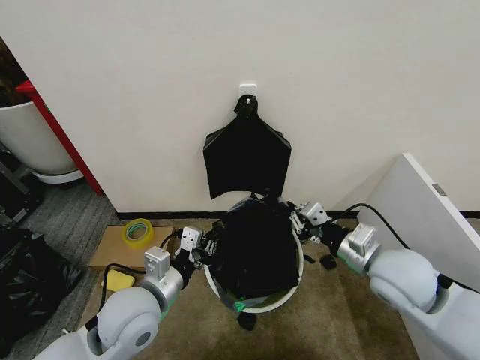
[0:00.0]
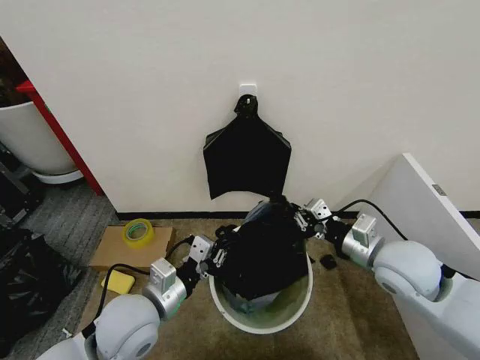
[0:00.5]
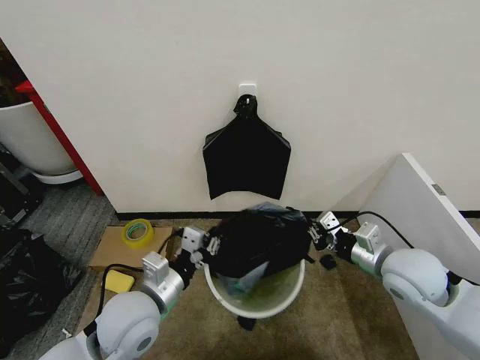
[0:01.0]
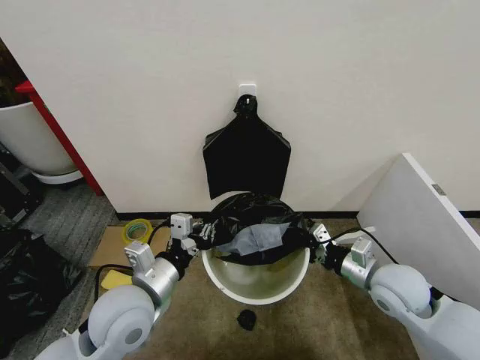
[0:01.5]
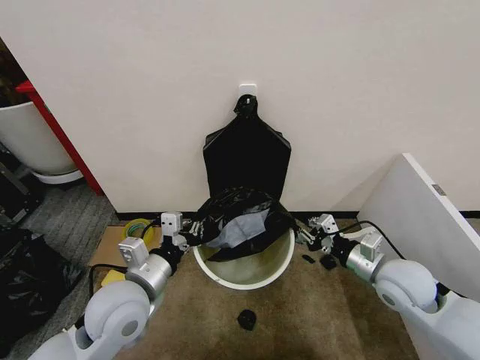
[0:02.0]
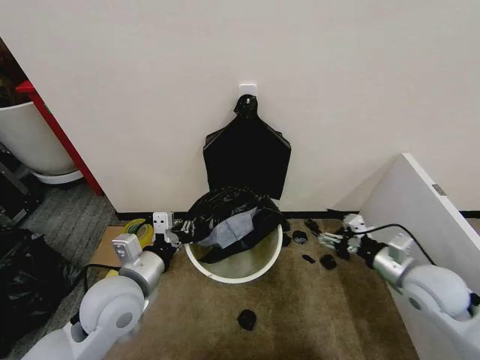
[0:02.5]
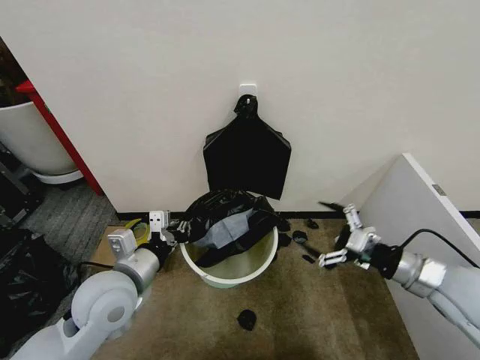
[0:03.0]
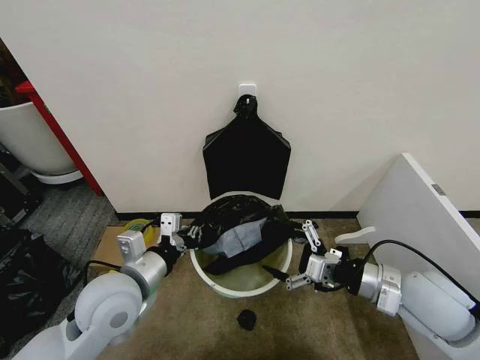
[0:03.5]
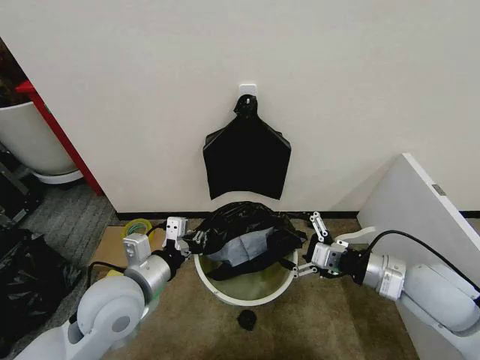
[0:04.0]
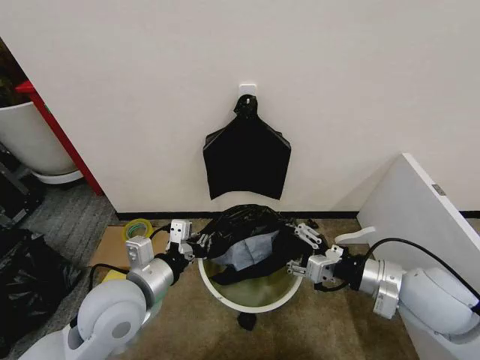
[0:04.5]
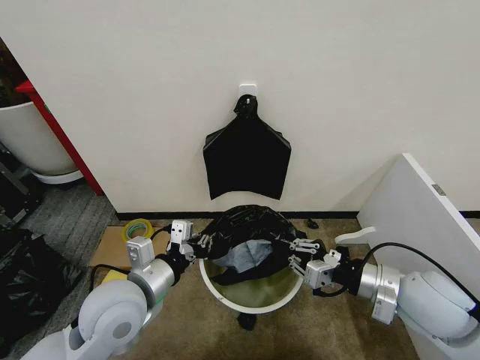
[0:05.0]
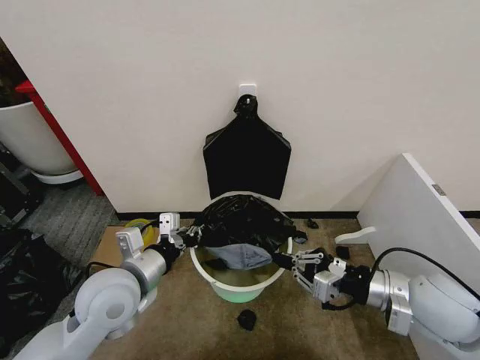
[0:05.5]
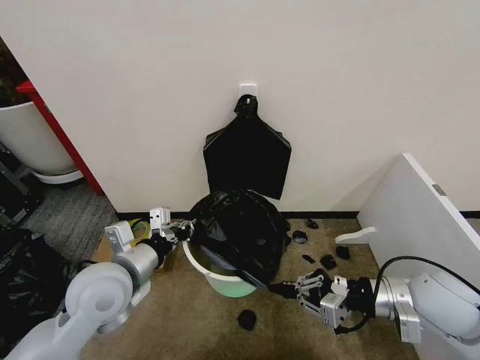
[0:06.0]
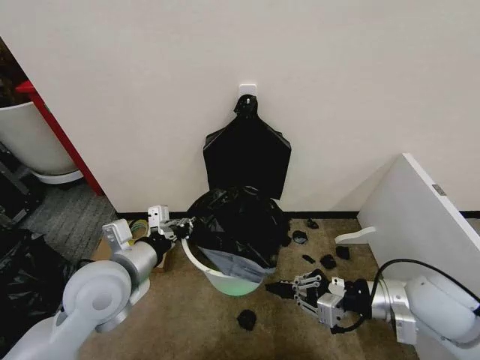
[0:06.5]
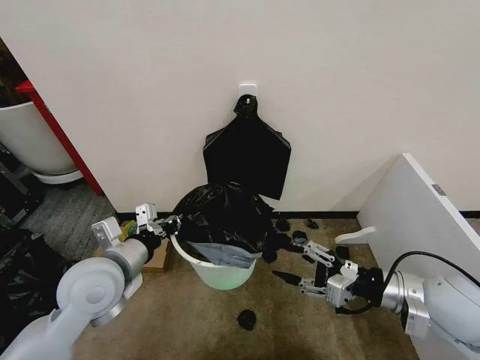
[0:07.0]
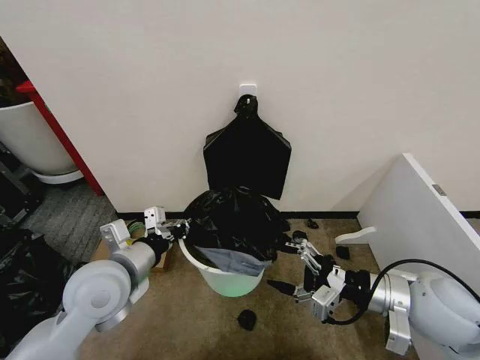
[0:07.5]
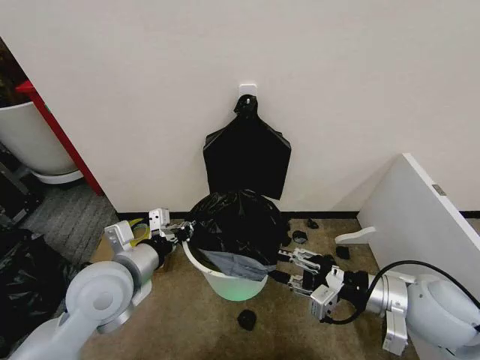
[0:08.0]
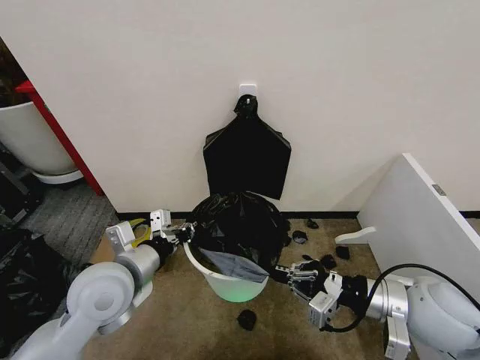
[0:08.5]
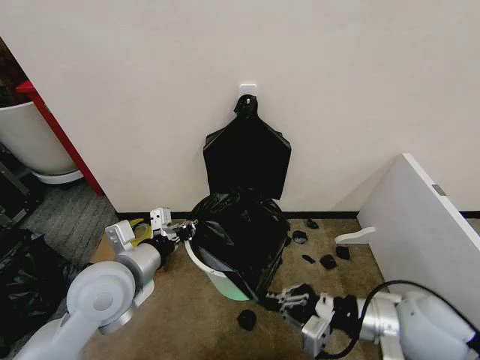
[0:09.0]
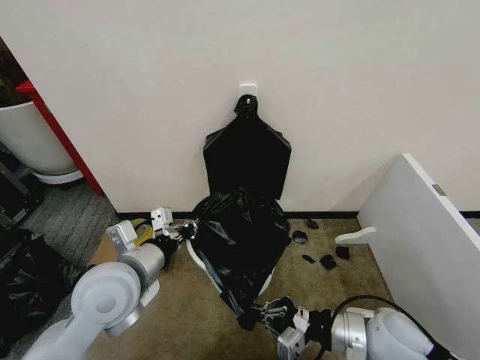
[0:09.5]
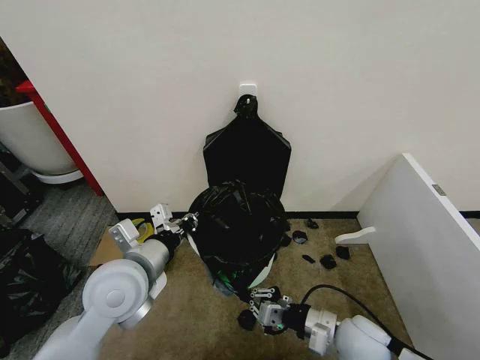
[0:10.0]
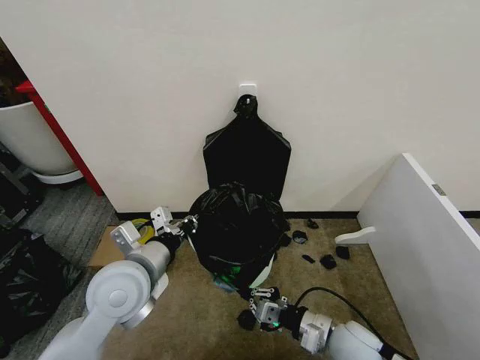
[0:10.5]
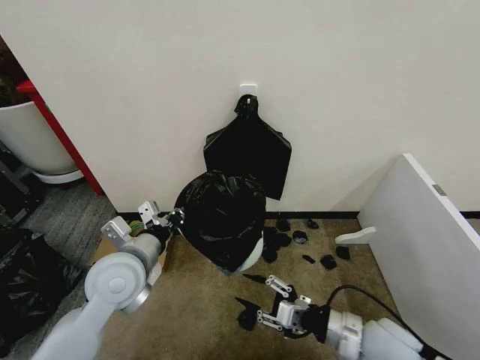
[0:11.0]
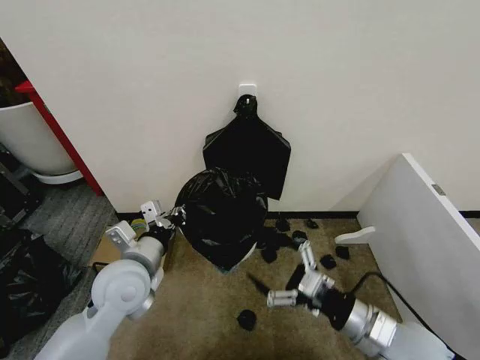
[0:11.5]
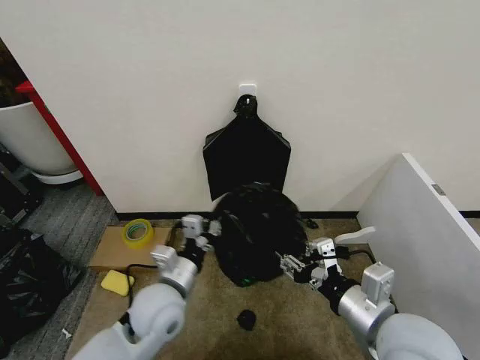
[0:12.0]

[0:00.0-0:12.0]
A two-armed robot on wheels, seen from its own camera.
Task of the whole recording: Place the garbage bag over the trash bin.
0:00.0 to 0:02.0: The right gripper shifts roughly 5 cm downward.
0:02.0 to 0:04.0: The right gripper travels upward by about 5 cm, and opens its fingers.
0:04.0 to 0:06.0: The right gripper closes its fingers.
0:06.0 to 0:08.0: The right gripper opens its fingers.
0:08.0 to 0:10.0: The right gripper heads downward and to the left, covering about 15 cm, and closes.
0:10.0 to 0:12.0: The right gripper is displaced upward by approximately 15 cm, and opens its fingers; the left gripper goes about 10 cm downward.

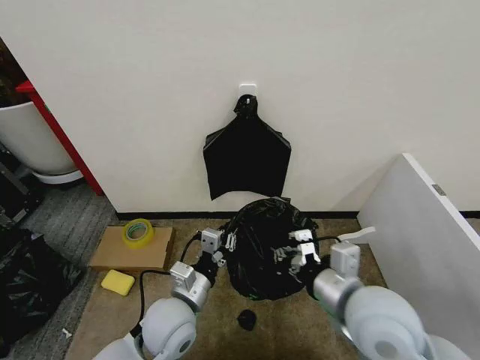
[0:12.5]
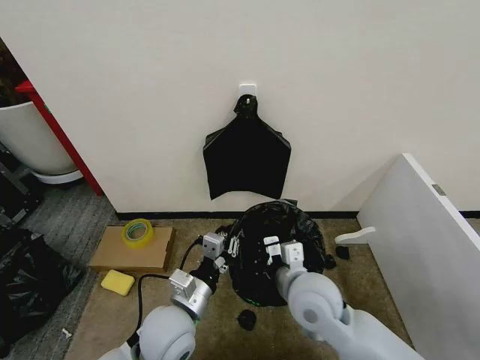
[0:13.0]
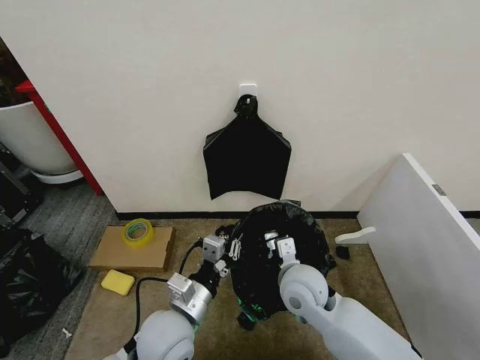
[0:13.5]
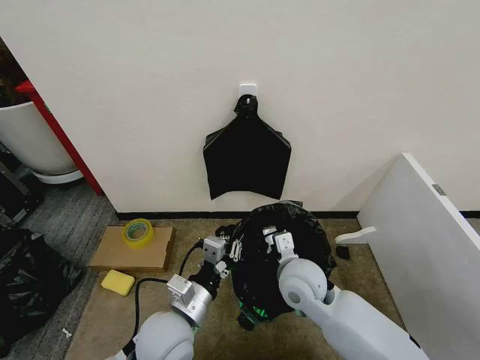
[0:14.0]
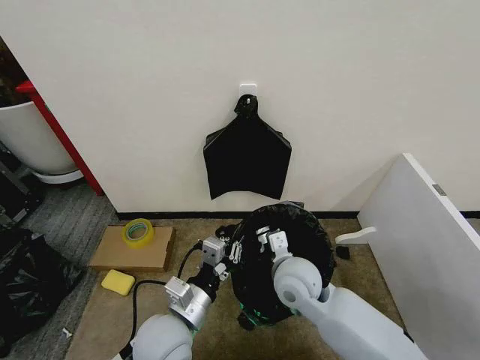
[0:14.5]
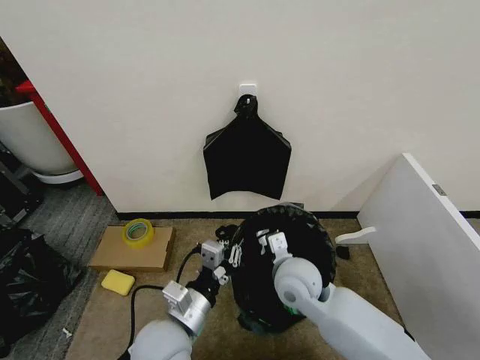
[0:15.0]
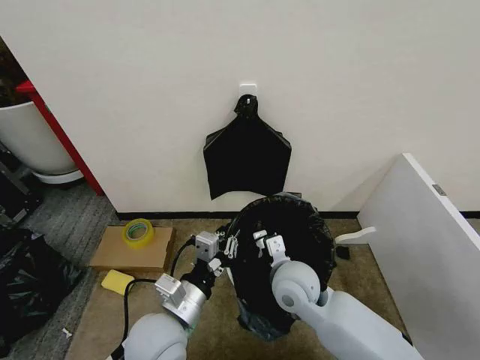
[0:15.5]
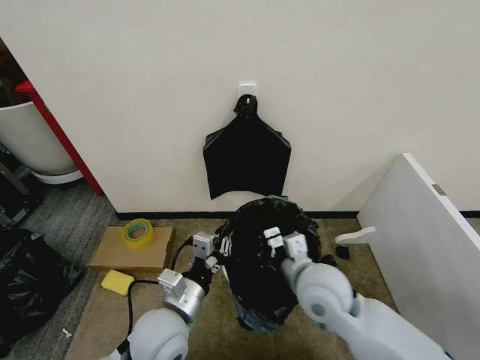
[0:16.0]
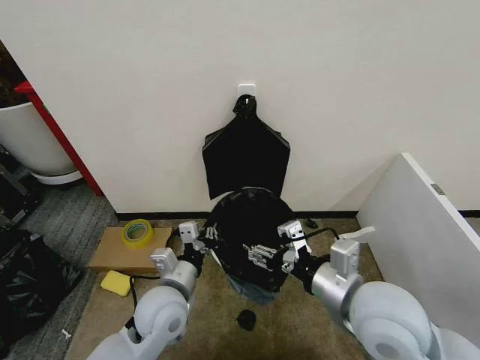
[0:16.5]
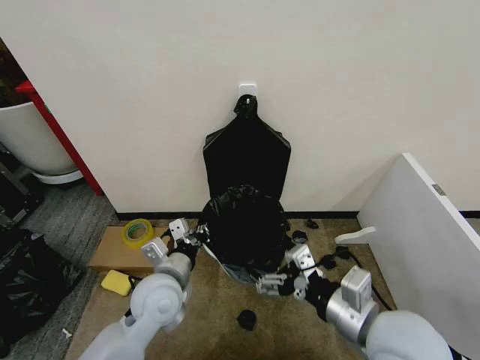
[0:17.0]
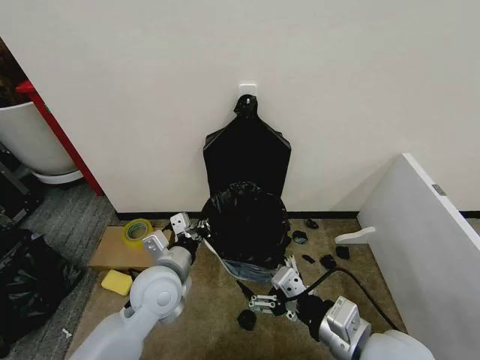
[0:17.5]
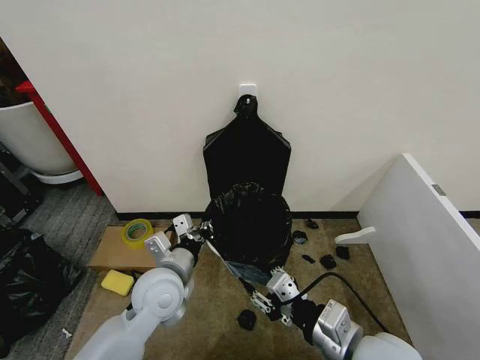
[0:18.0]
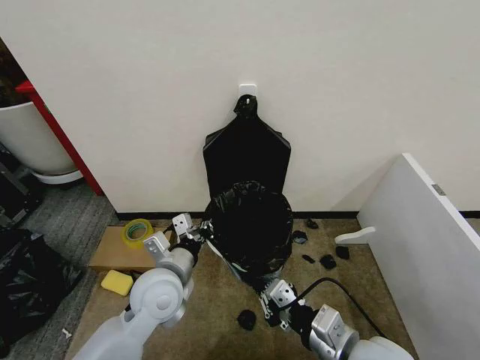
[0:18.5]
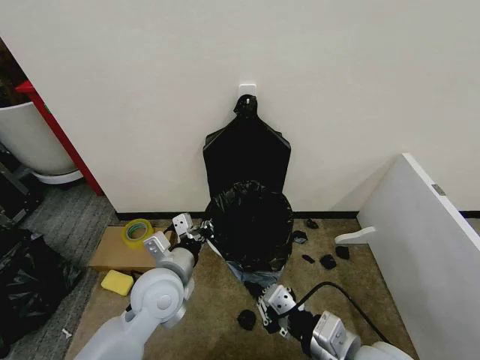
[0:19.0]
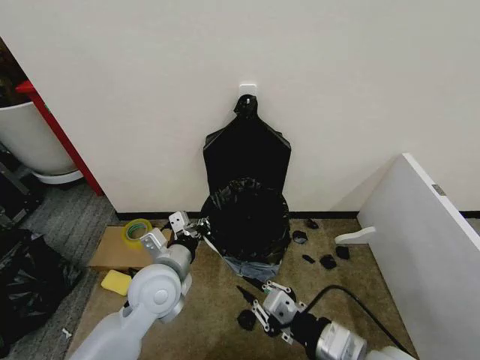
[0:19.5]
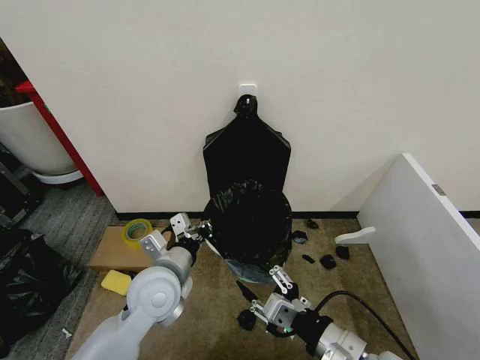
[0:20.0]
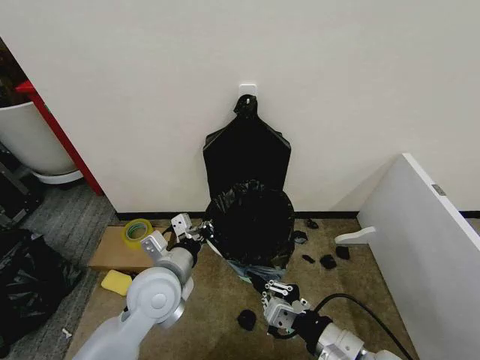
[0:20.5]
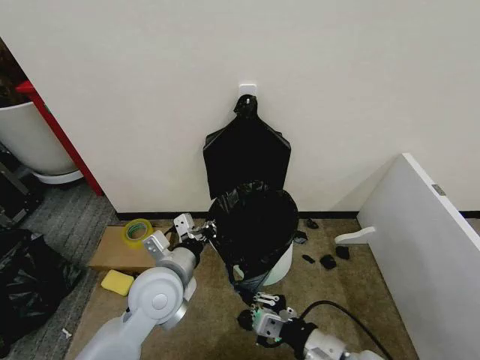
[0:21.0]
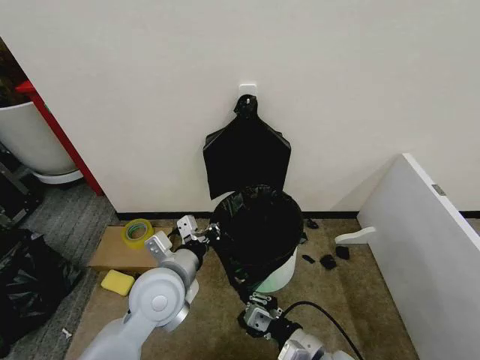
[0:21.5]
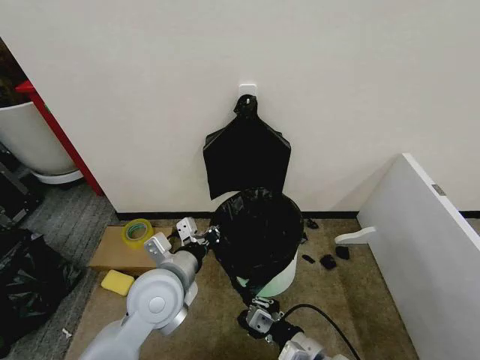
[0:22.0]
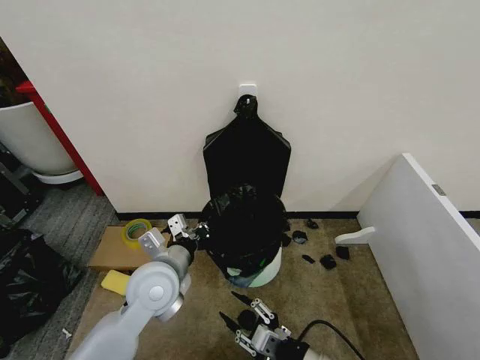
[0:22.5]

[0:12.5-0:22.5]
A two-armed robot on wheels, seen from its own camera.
Task of the whole recording: Place the garbage bag over the trash bin.
0:12.5 to 0:14.5: The right gripper moves forward, downward and to the left, some 15 cm.
0:14.5 to 0:16.5: The right gripper is displaced upward, backward and to the right by about 20 cm, and opens, while the left gripper heads forward, covering approximately 5 cm.
0:16.5 to 0:18.5: The right gripper goes approximately 10 cm downward and backward, and closes its fingers.
0:18.5 to 0:20.5: The right gripper opens and closes again.
0:20.5 to 0:22.5: The right gripper goes roughly 10 cm downward, and opens its fingers.

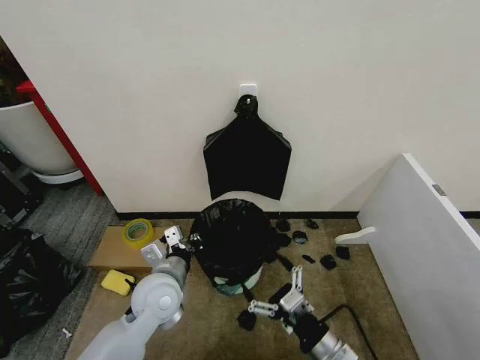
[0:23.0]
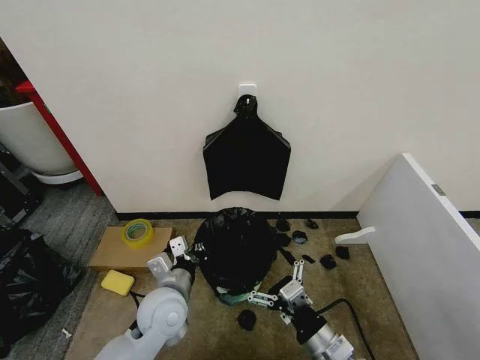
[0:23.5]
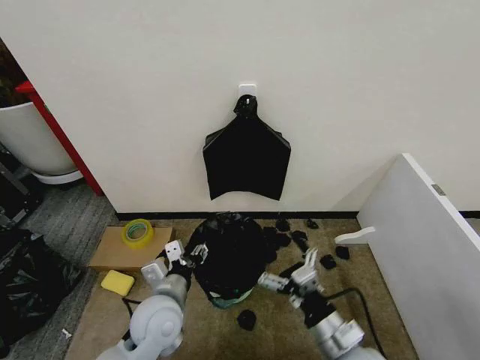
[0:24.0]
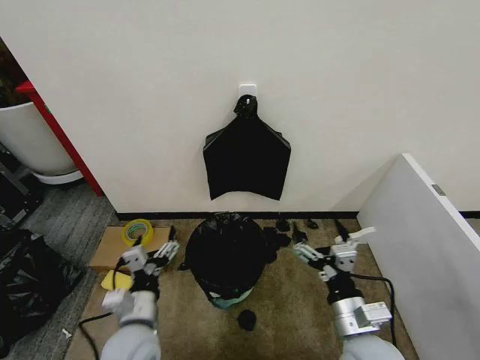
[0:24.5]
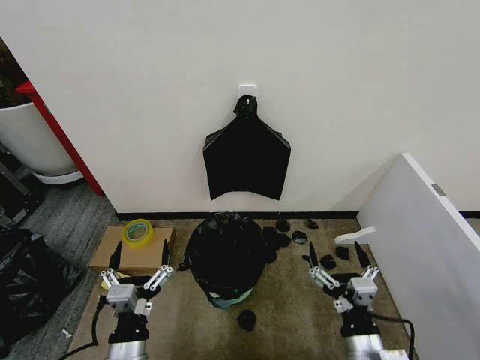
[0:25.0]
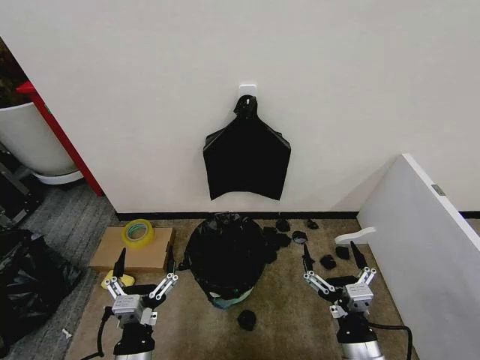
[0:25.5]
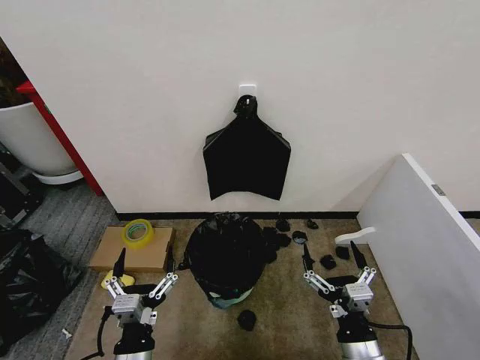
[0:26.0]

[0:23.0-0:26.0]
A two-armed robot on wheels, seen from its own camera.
Task of the whole recording: Place the garbage bag over the trash bin.
0:23.0 to 0:24.5: The left gripper goes approximately 10 cm backward, and opens up.
0:24.5 to 0:26.0: The two grippers go about 5 cm backward.
